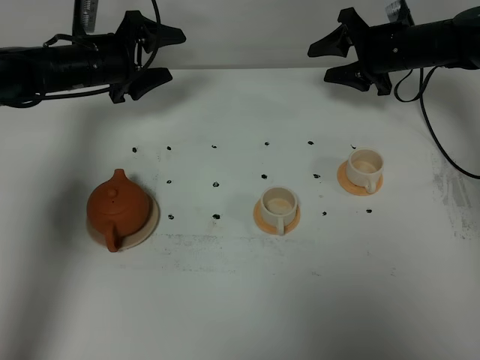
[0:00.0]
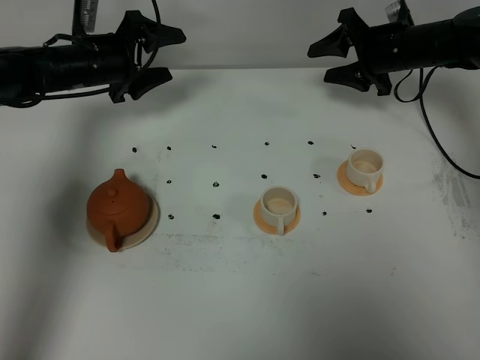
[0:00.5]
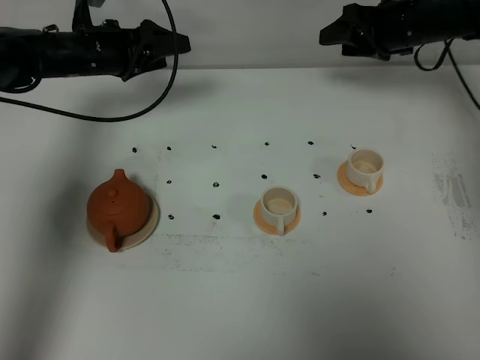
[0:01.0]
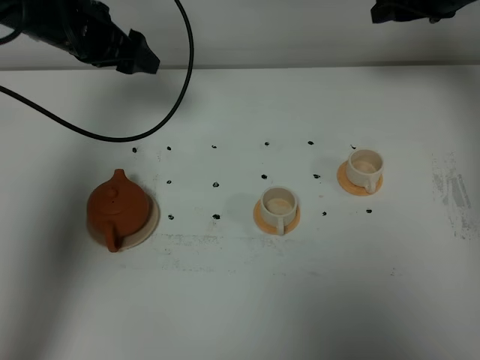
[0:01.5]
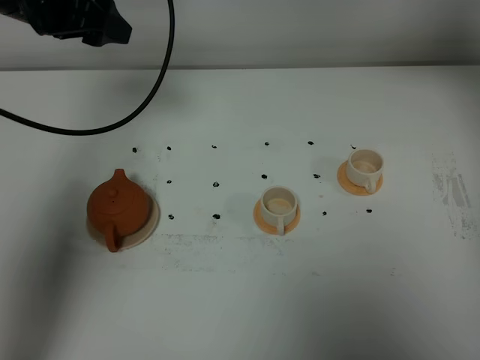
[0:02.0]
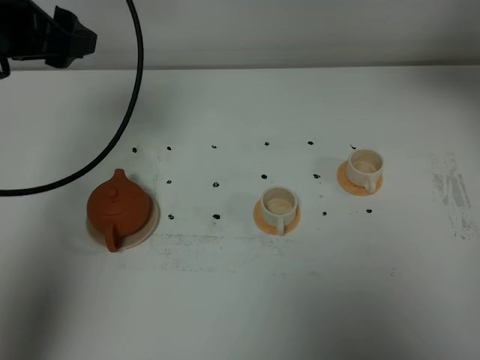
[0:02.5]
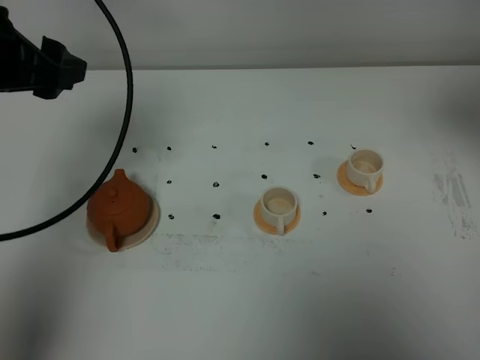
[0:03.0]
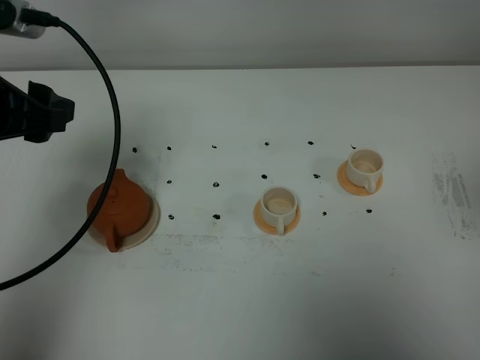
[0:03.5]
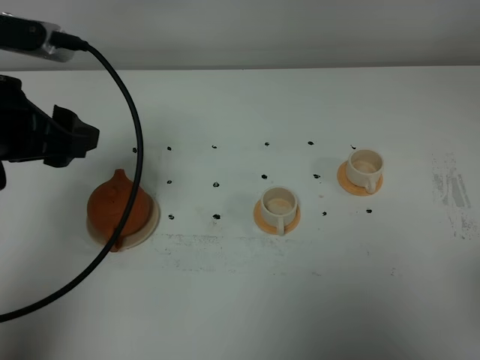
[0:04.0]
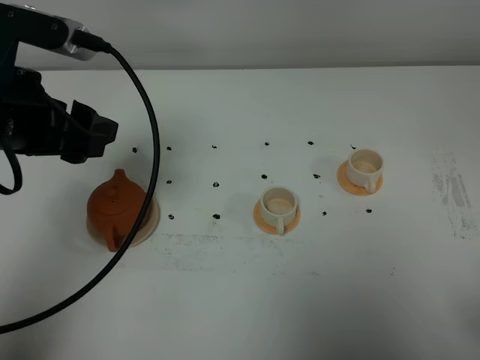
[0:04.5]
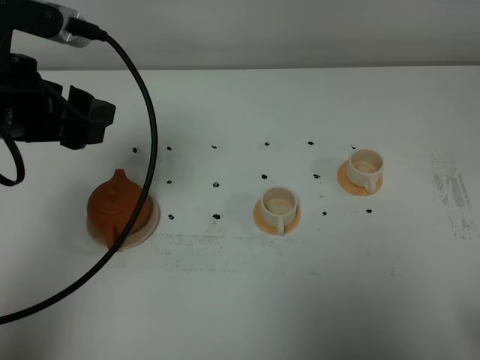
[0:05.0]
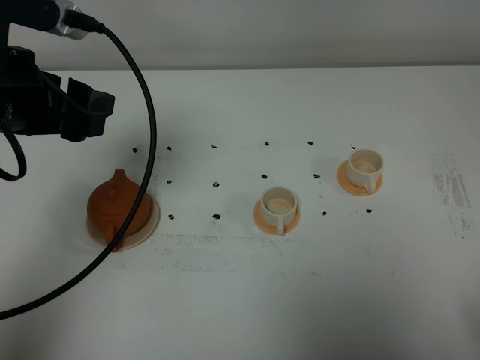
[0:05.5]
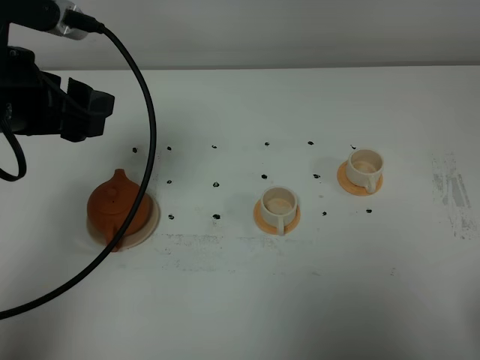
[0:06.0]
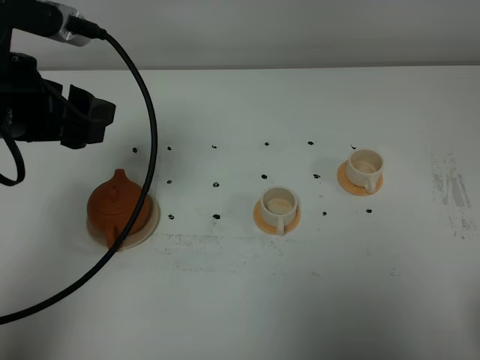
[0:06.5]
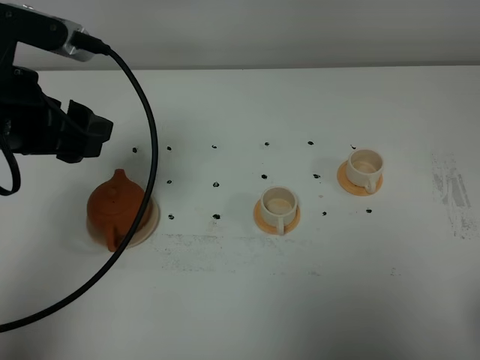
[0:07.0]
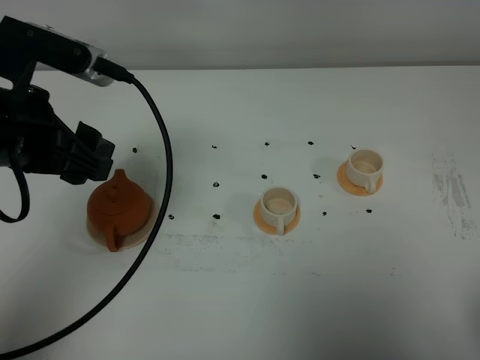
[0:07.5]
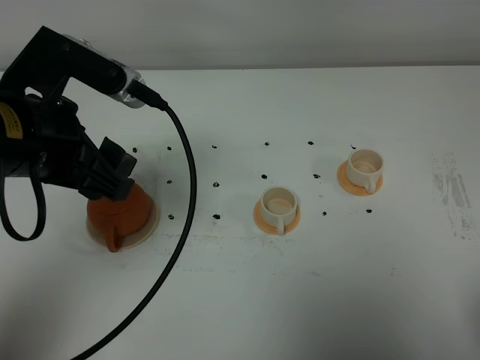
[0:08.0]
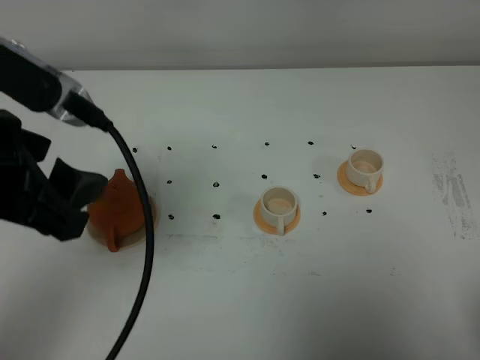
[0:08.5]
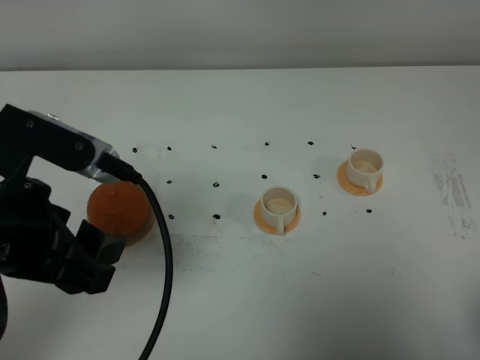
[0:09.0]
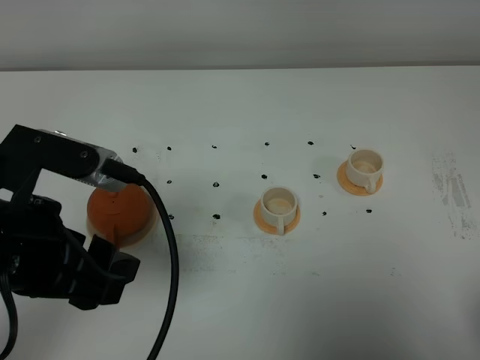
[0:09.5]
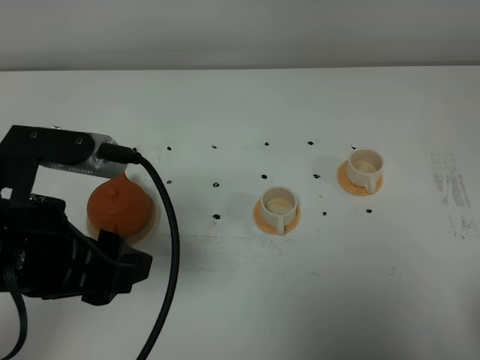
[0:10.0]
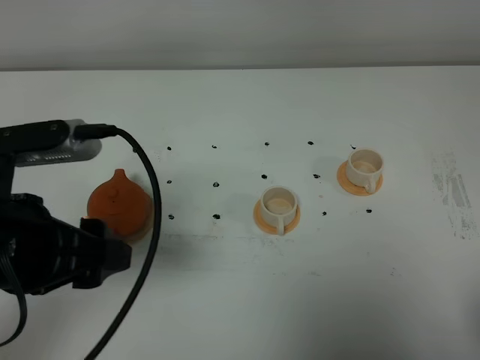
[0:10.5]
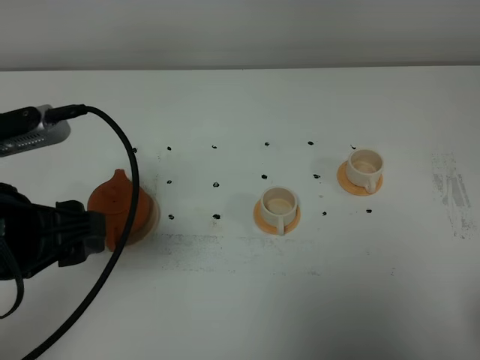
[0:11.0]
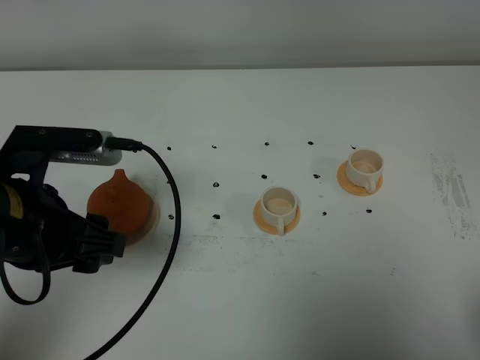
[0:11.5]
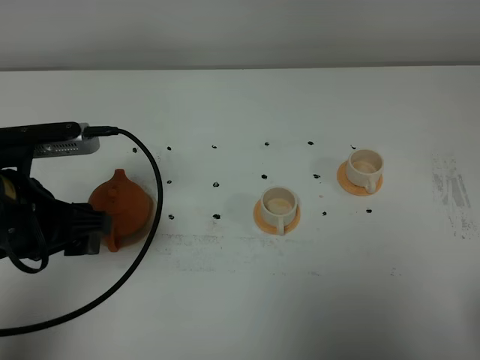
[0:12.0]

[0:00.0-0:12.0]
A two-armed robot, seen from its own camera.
Task of the whole recording: grasp the brown teapot and pour the tea into the two white teacups one by one, put the brown teapot back in its original place.
0.0 to 2.0 s: The left gripper travels upward and backward by about 20 cm. The right gripper goes approximately 20 cm upward.
2.0 to 4.0 s: The right gripper travels backward by roughly 40 cm; the left gripper shifts some 15 cm backward.
6.0 to 8.0 s: The left gripper moves roughly 5 cm.
8.0 to 10.0 s: The left gripper moves backward, approximately 10 cm.
10.0 to 12.0 s: The left gripper heads forward and downward, covering roughly 10 cm.

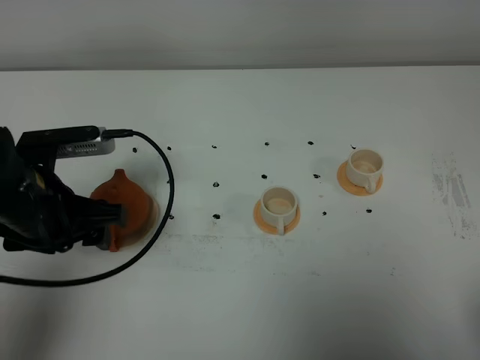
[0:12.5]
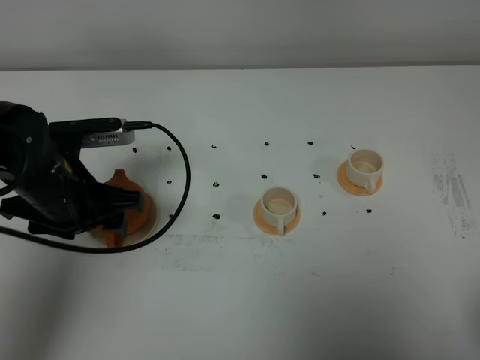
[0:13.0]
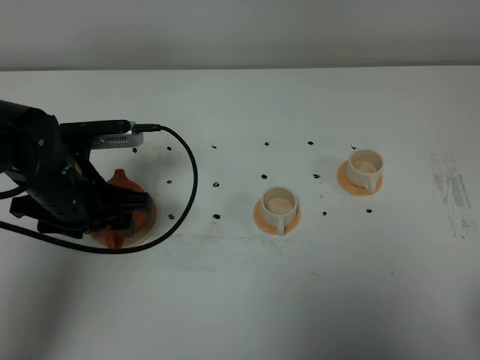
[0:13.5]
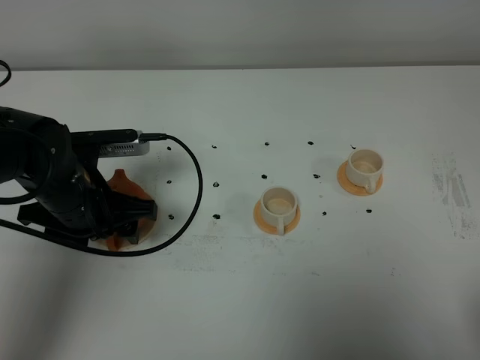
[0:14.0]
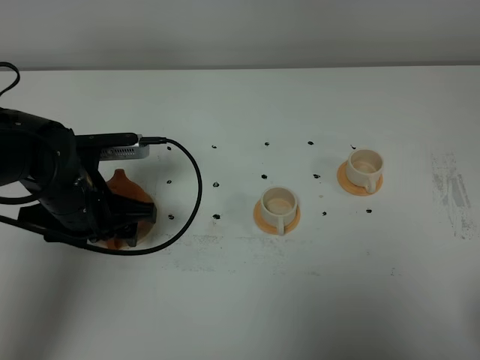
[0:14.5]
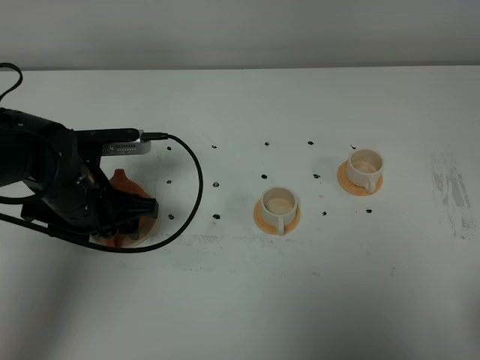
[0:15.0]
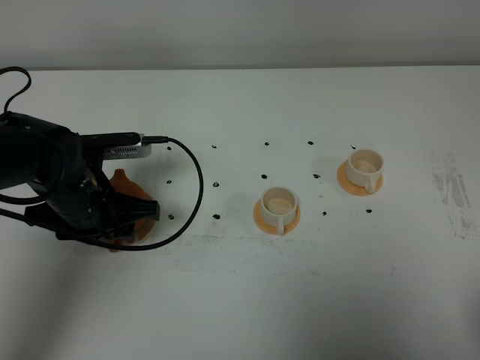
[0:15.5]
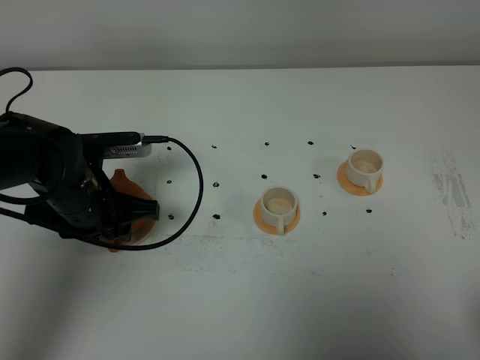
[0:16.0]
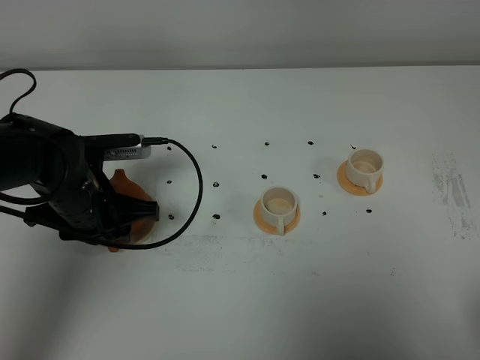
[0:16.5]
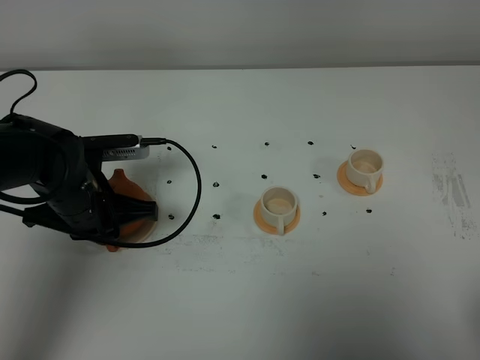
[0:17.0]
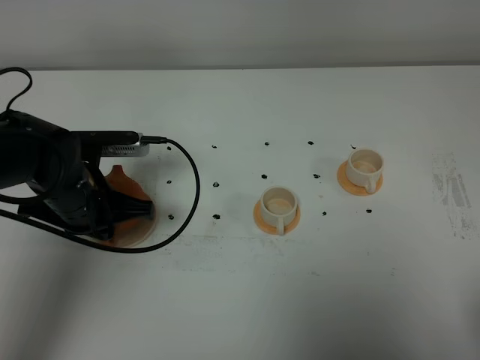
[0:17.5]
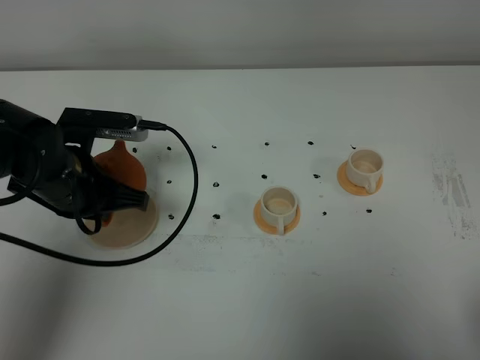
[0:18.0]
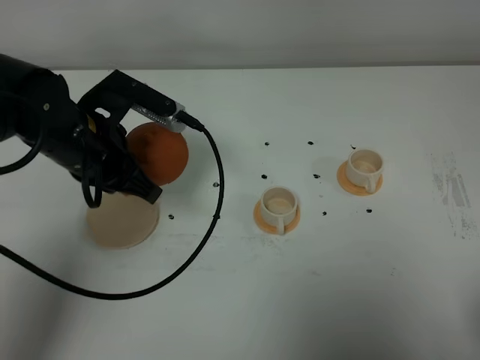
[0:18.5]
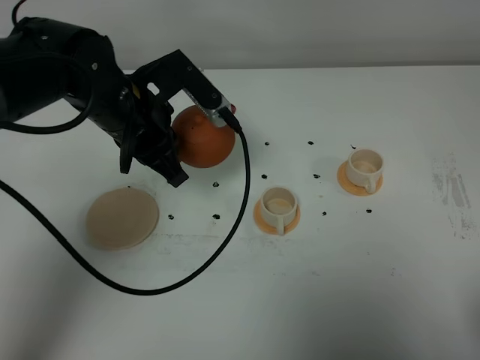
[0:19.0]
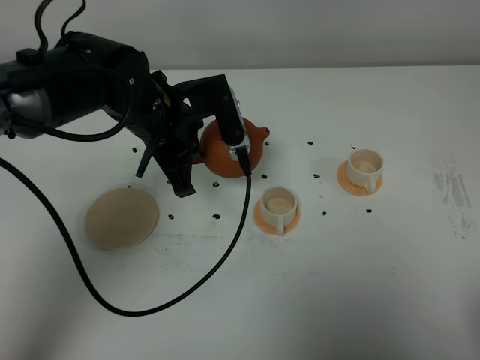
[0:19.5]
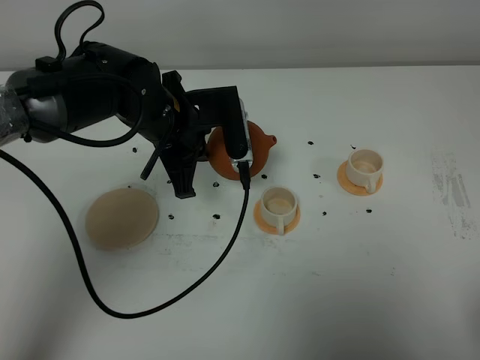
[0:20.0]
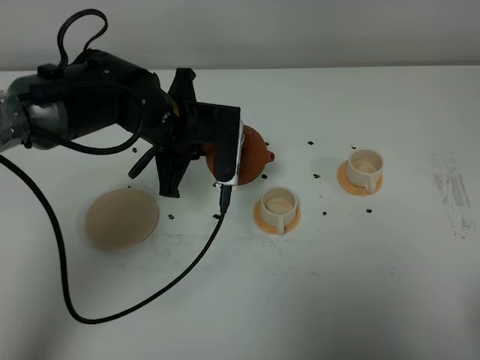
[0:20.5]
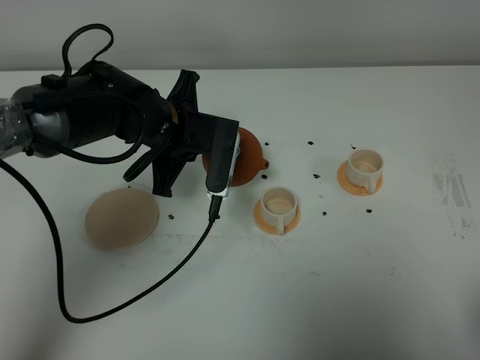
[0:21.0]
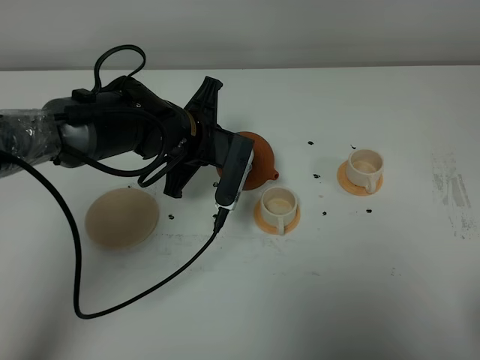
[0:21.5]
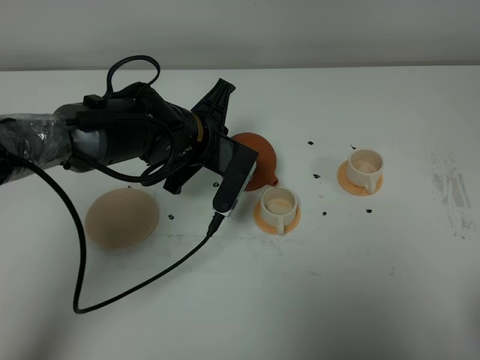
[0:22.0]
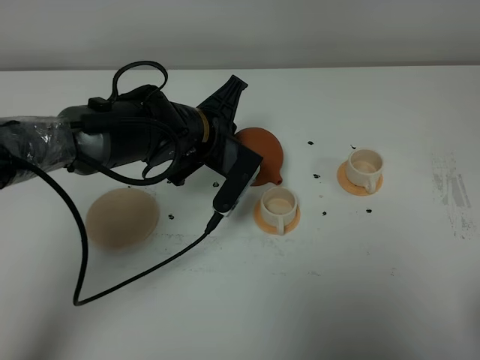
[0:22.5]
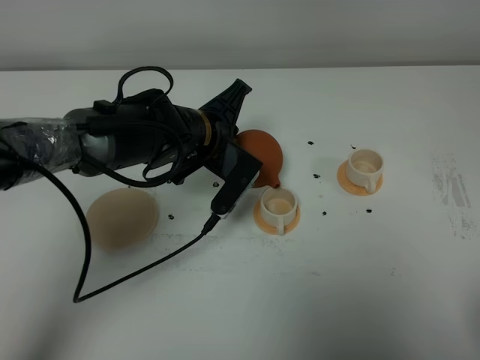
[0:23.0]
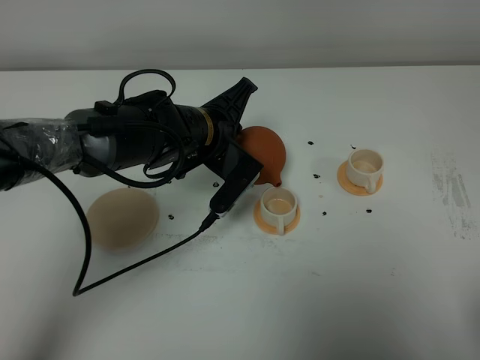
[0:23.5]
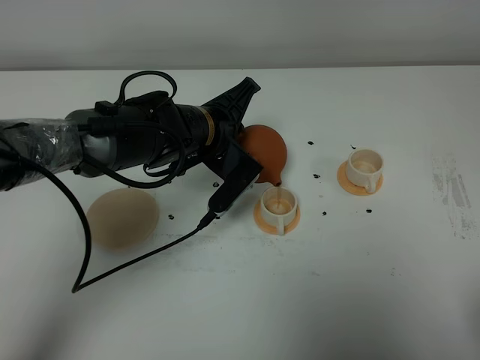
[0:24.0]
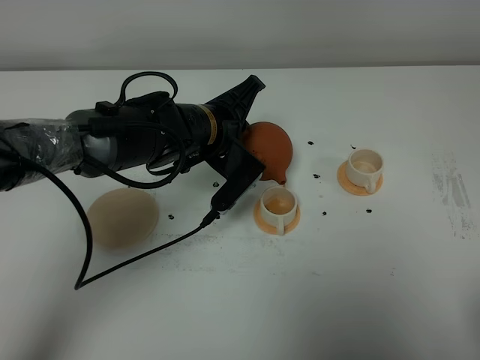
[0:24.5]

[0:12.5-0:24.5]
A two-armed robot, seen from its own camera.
Task of the whole recording: grasp the brown teapot and pour the tea into the two white teacups one by one, put the brown teapot back in its original place.
Step, 12.5 to 17.5 s: Pick up the teapot with the left gripper.
12.5 to 14.5 s: The left gripper moves approximately 5 cm.
14.5 to 16.5 s: The grippers stay close to where they were, moving slightly.
16.5 to 18.5 s: The left gripper moves upward, roughly 10 cm, and closes.
18.5 to 20.5 s: The left gripper goes approximately 10 cm to the right and forward.
22.5 to 24.5 s: The grippers make only small movements.

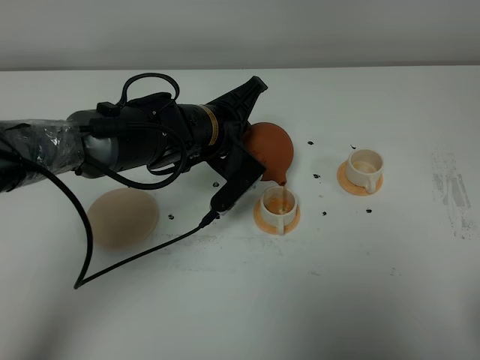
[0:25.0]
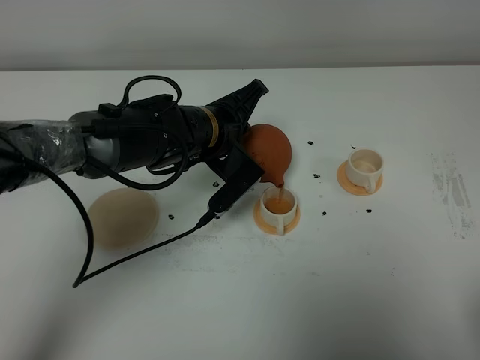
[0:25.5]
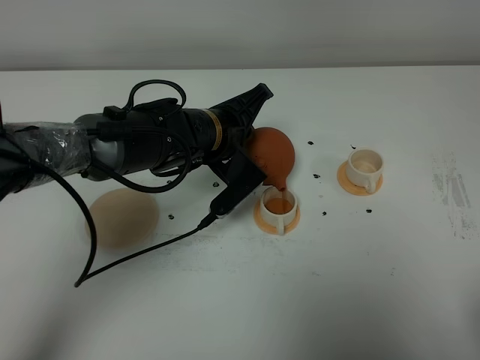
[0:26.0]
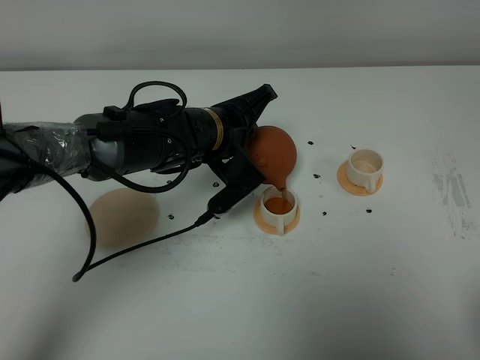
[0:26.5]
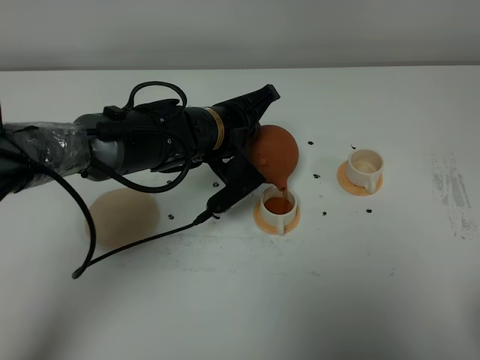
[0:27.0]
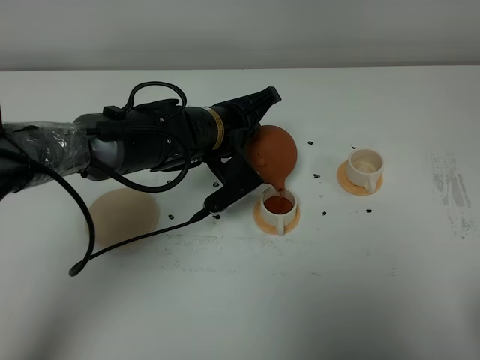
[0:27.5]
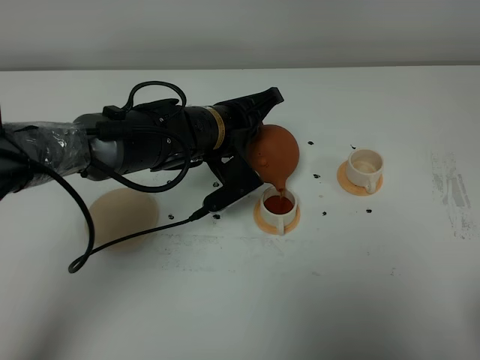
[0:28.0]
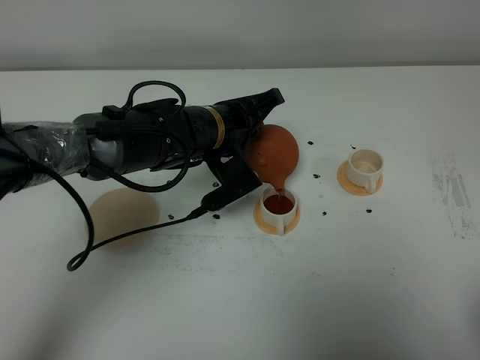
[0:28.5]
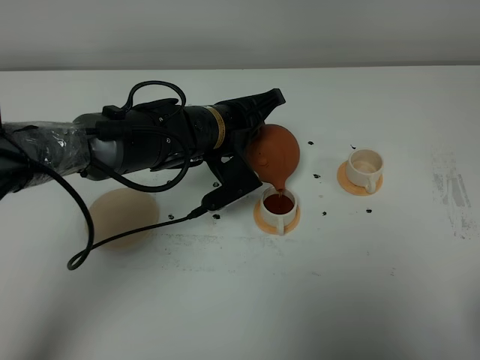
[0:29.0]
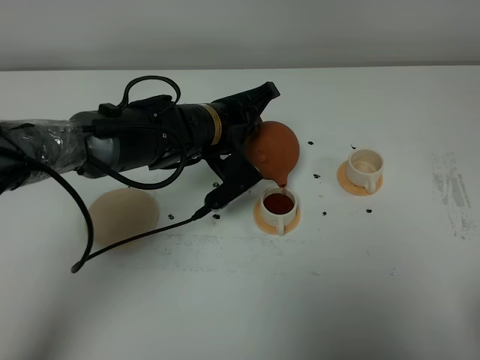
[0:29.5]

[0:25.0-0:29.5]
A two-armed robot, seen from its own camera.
Task of the whole recording: grasp the brown teapot and pour the tea into the two white teacups one by one, put the brown teapot back in its original place.
25.0 to 29.5 s: The grippers make only small movements.
